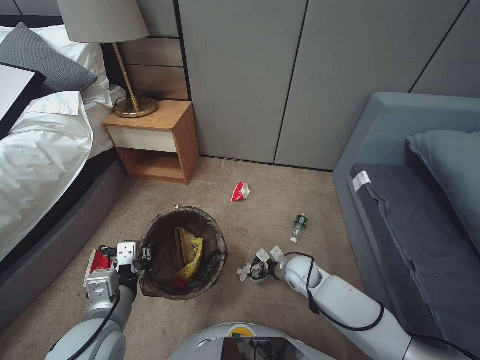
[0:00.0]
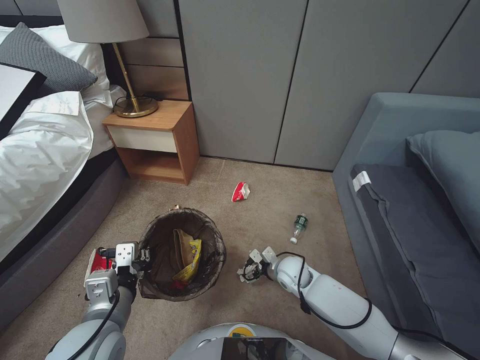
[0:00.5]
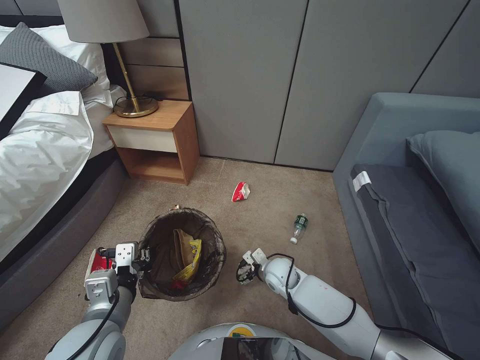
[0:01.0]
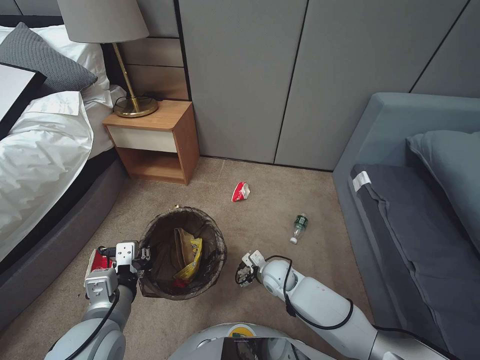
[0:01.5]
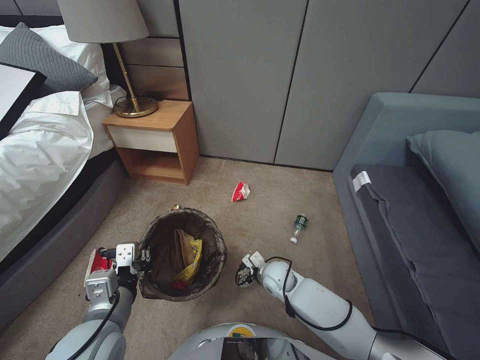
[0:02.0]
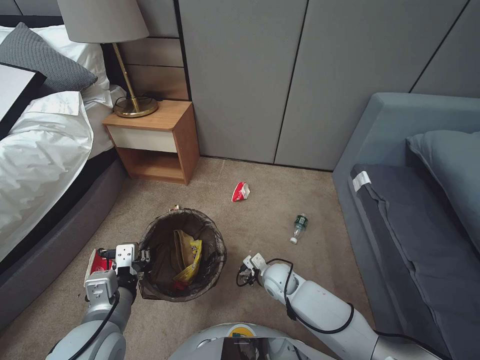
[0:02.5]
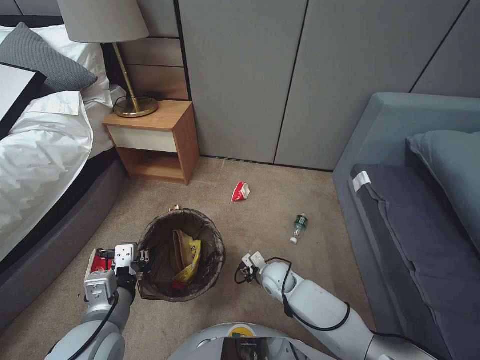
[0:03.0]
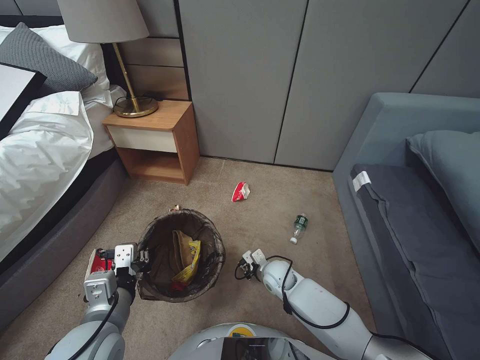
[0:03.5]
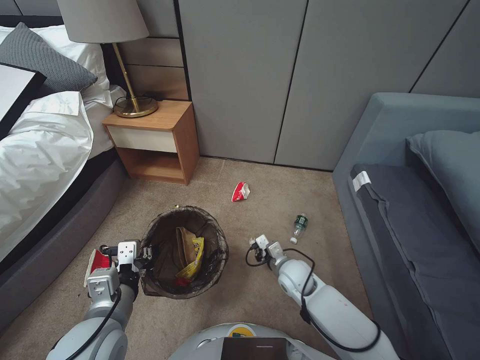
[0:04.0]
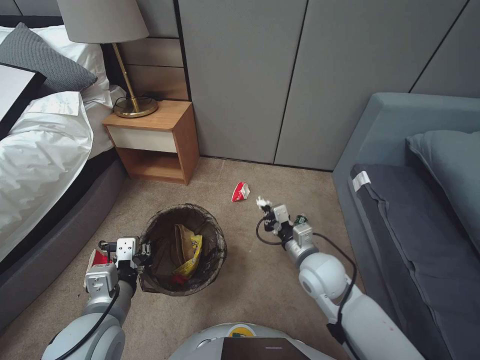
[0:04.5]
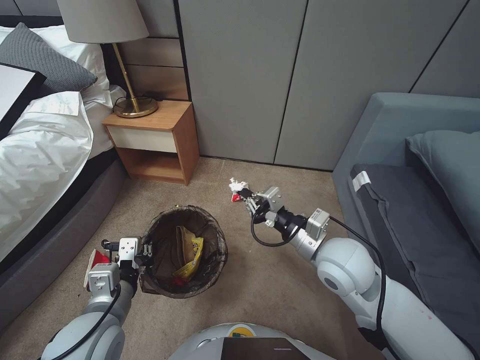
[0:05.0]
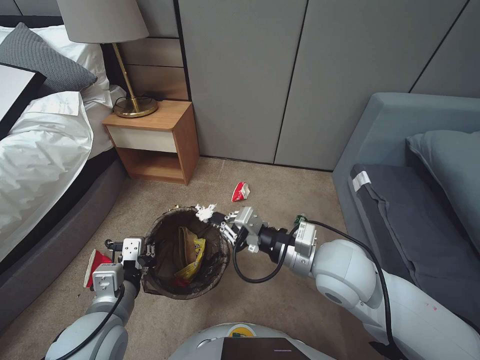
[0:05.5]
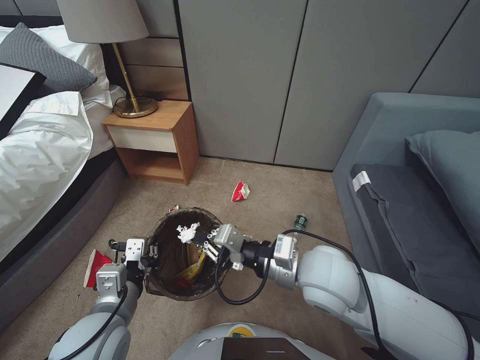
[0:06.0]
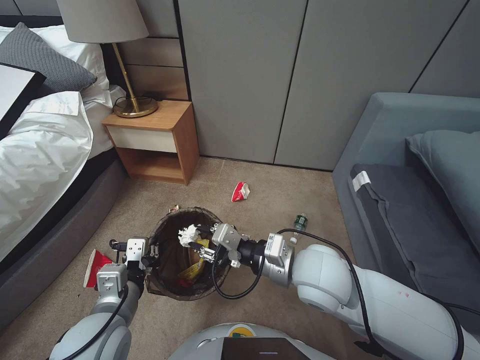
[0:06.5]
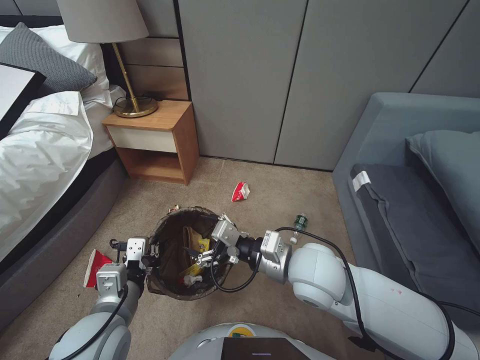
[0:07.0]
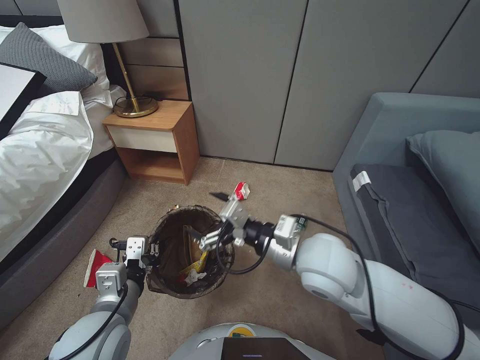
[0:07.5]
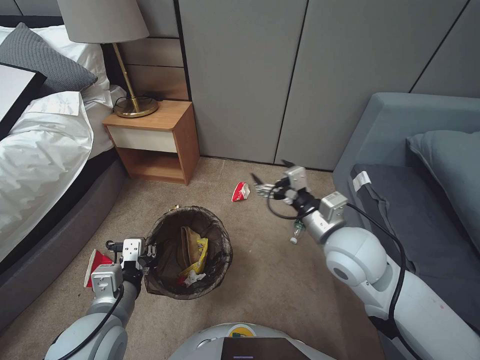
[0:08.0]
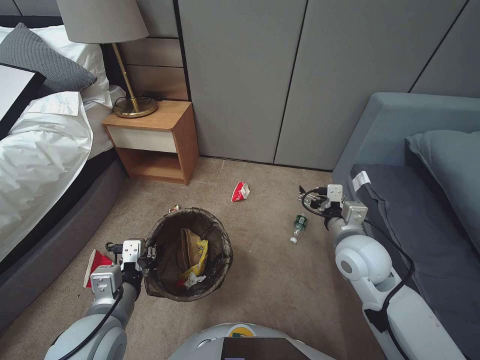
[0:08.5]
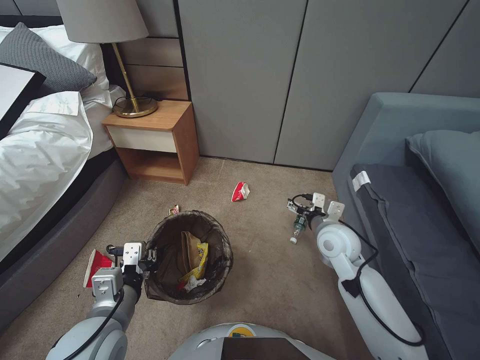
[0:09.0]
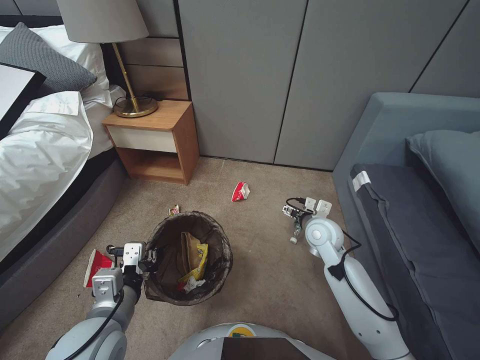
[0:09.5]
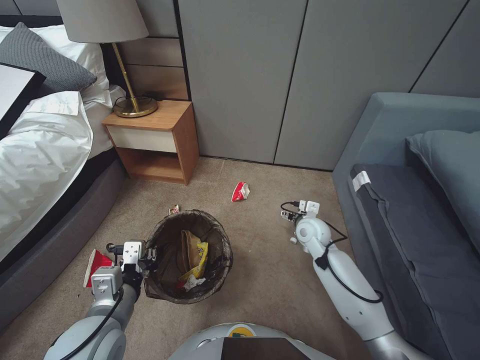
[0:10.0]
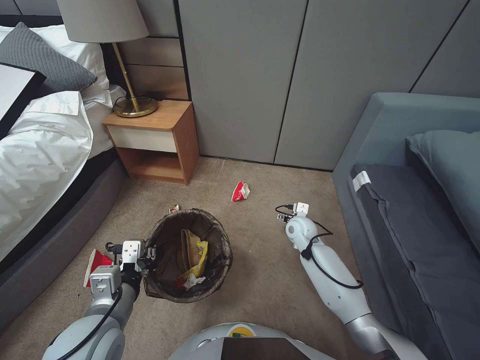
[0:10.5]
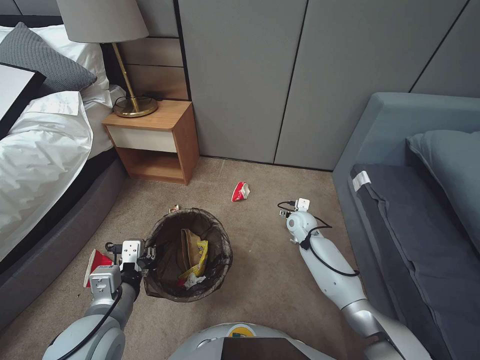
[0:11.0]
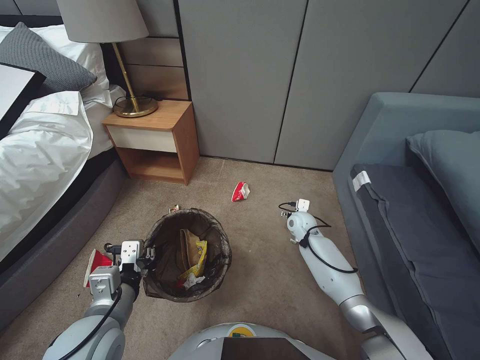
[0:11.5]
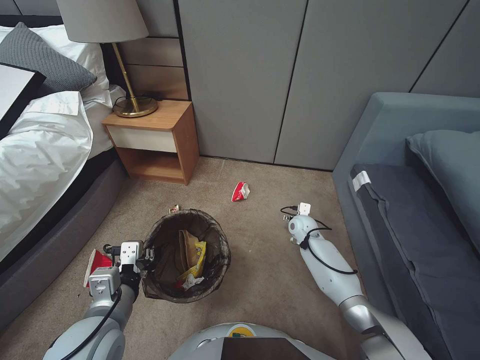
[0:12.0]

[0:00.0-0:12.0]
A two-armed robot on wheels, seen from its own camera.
Task of the whole recording: Pick up the trash bin, then pick up the garbage from the floor and place it into the trash bin.
0:00.0 to 0:02.0: The right gripper goes about 5 cm to the left.
0:02.0 to 0:04.0: The right gripper shifts by approximately 5 cm, and closes its fingers.
0:04.0 to 0:06.0: The right gripper goes roughly 25 cm upward.
0:06.0 to 0:08.0: The right gripper ends up roughly 5 cm from where it was, and opens.
0:08.0 to 0:10.0: The right gripper moves downward and forward, approximately 25 cm.
0:10.0 to 0:12.0: The right gripper moves downward and forward, approximately 10 cm.

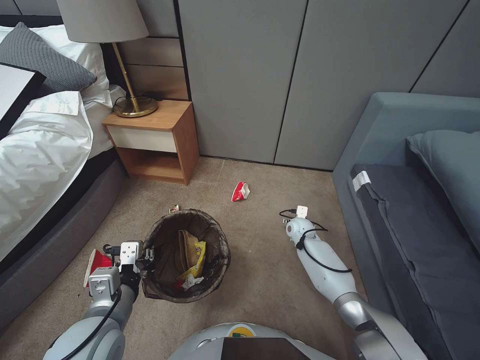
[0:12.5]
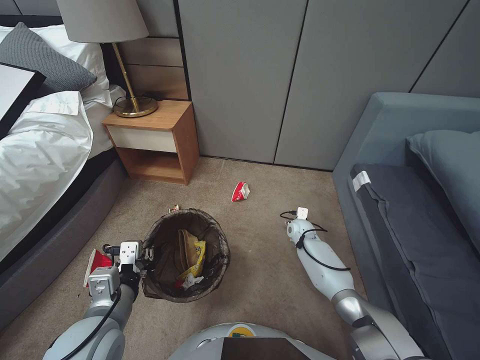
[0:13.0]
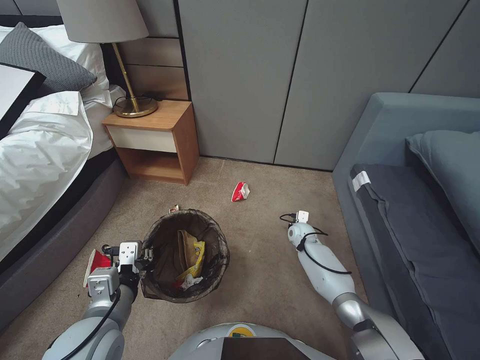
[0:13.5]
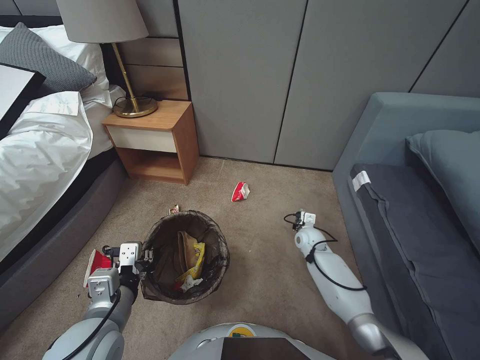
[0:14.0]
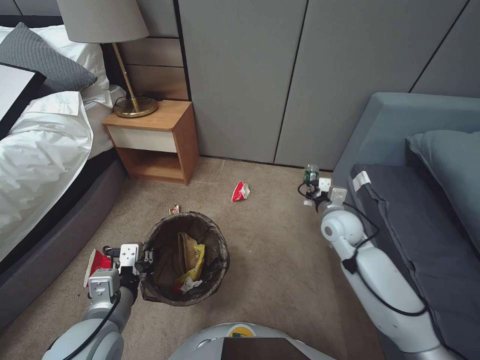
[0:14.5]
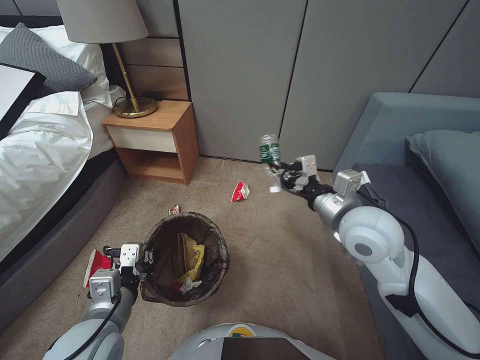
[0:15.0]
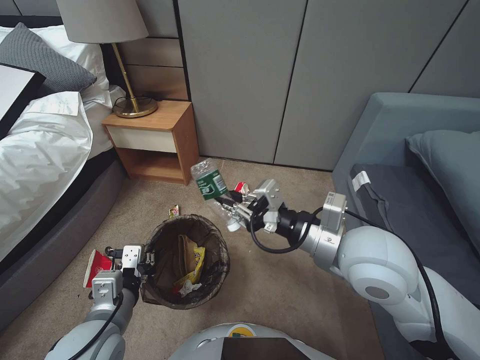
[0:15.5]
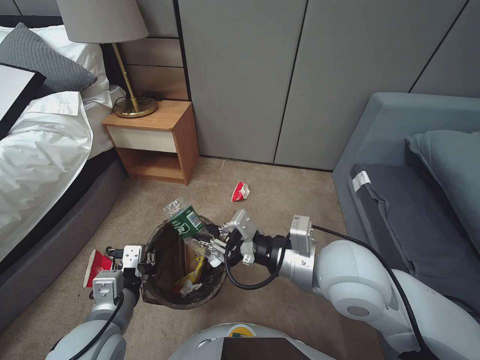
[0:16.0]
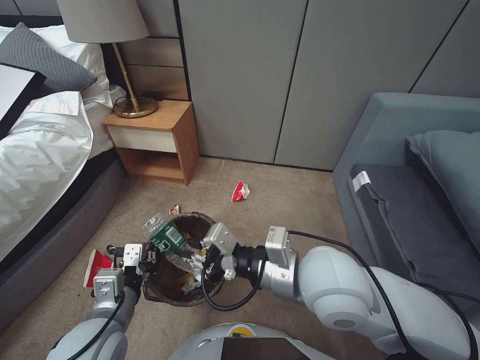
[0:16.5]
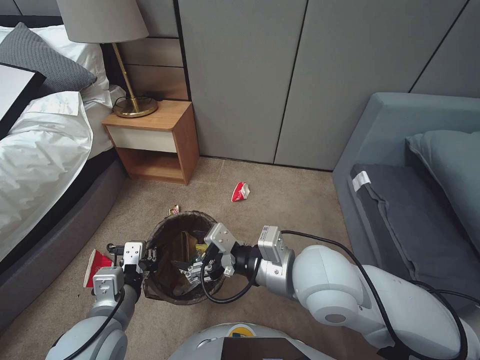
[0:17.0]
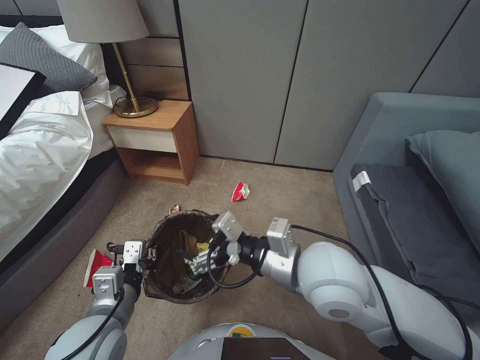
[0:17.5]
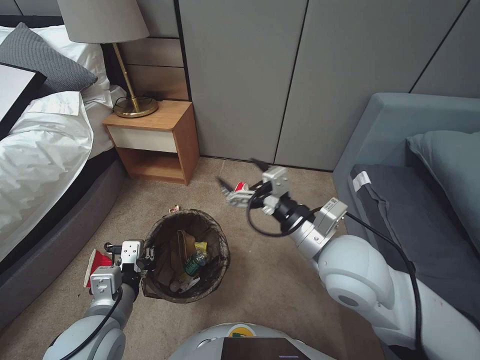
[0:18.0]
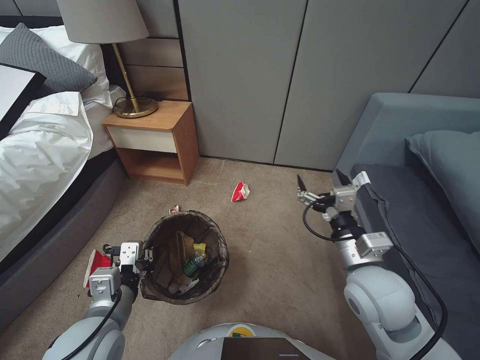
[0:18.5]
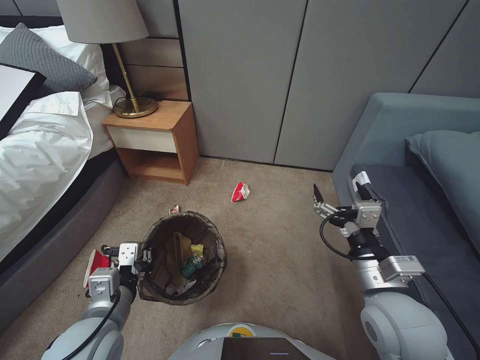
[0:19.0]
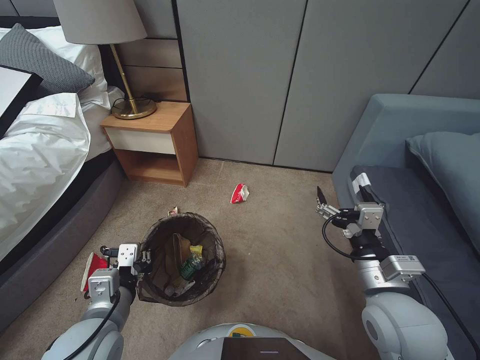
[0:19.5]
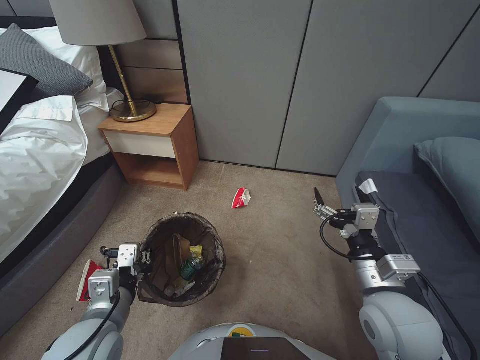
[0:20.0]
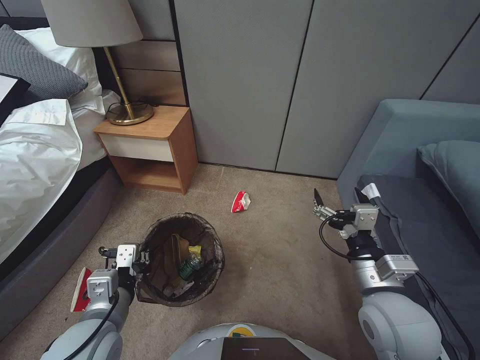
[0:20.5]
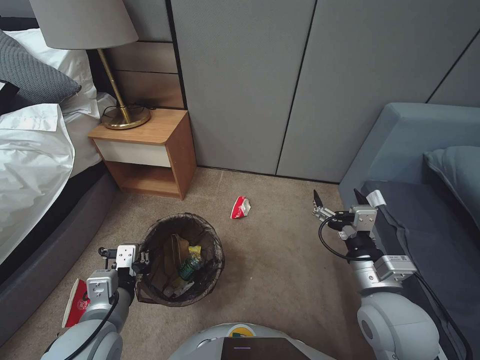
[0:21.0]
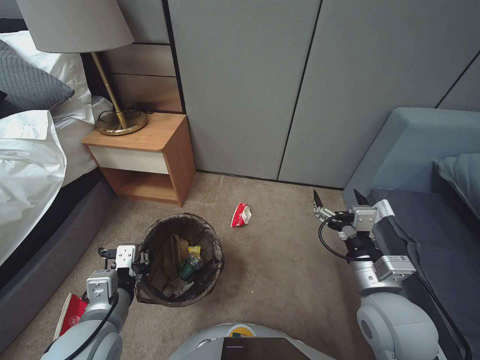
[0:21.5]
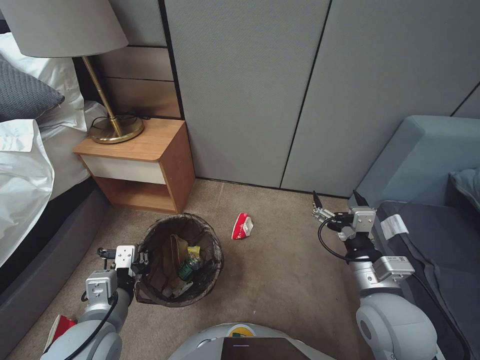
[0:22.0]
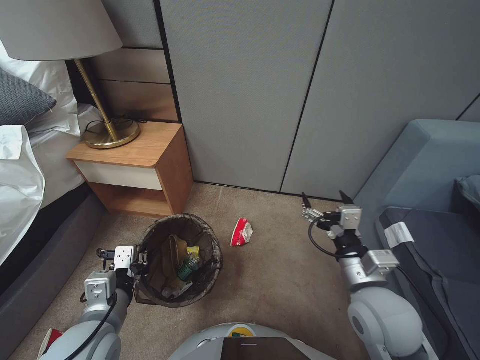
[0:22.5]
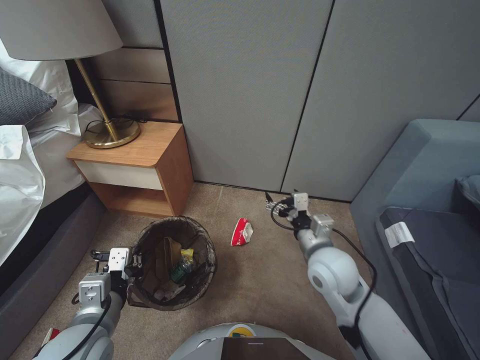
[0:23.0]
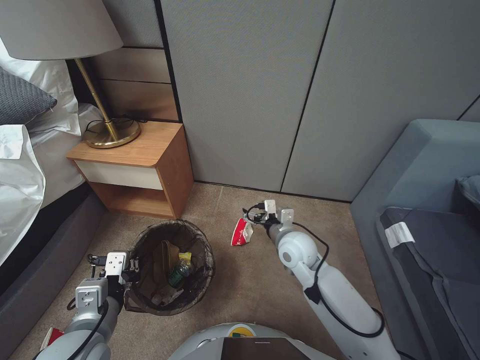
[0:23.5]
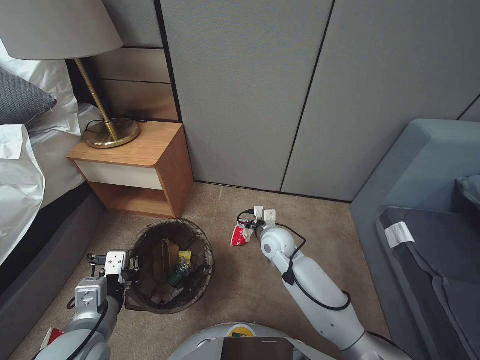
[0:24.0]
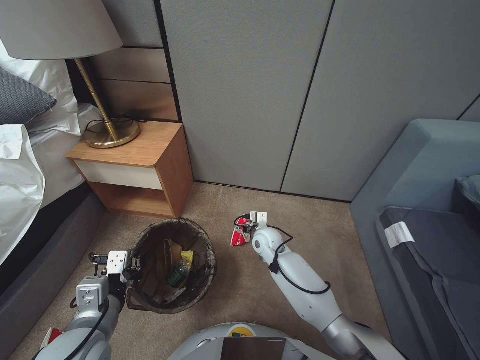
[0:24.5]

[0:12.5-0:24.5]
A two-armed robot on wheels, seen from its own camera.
Task of the whole recording: Pick up the trash bin, then pick up the garbage from the floor and place it into the trash bin.
0:12.5 to 0:14.5: The right gripper travels upward and backward by roughly 15 cm, and closes up.
0:14.5 to 0:16.5: The right gripper shifts roughly 30 cm backward, upward and to the left.
0:16.5 to 0:18.5: The right gripper travels to the right and downward by roughly 15 cm, and opens.
0:18.5 to 0:20.5: The grippers make only small movements.
0:22.5 to 0:24.5: The right gripper heads forward, downward and to the left, covering roughly 35 cm.

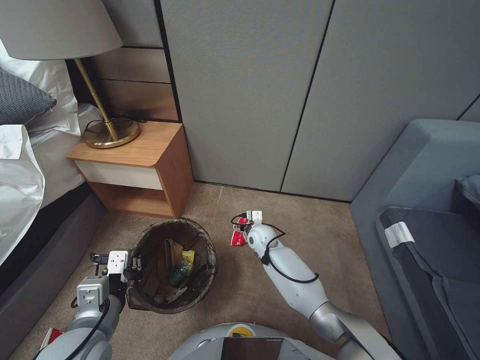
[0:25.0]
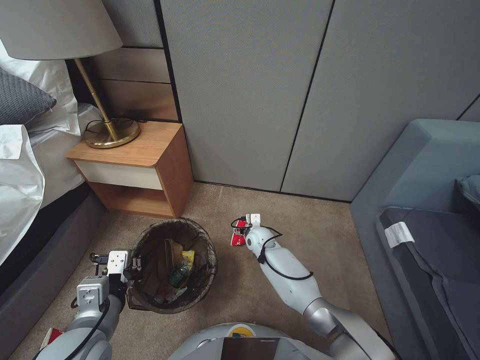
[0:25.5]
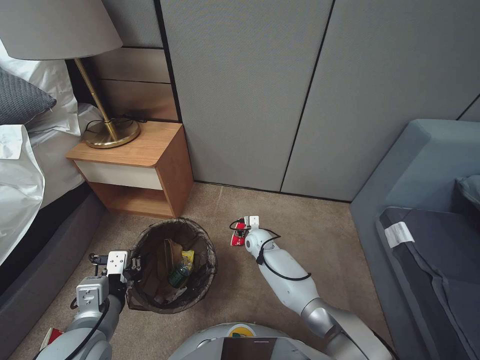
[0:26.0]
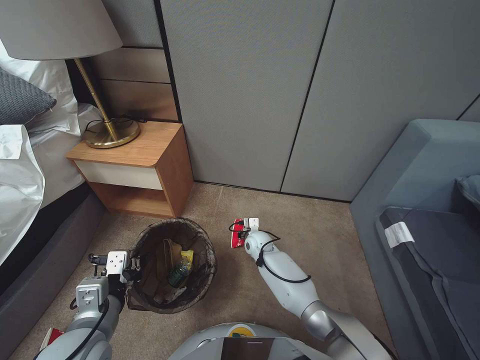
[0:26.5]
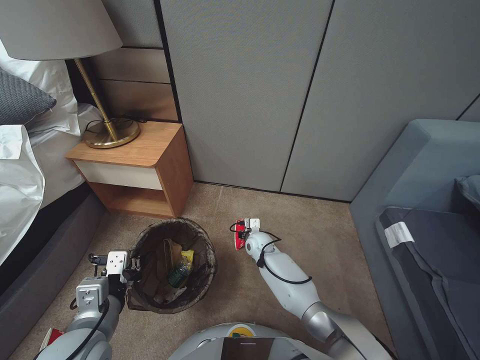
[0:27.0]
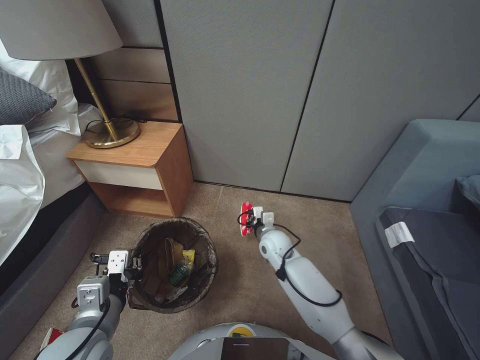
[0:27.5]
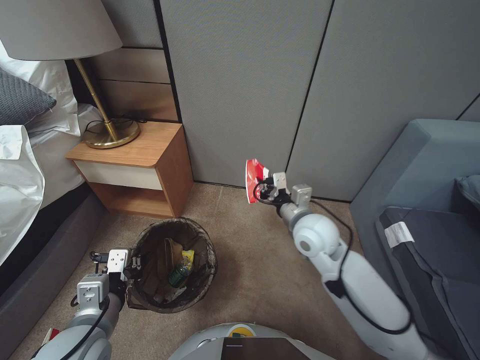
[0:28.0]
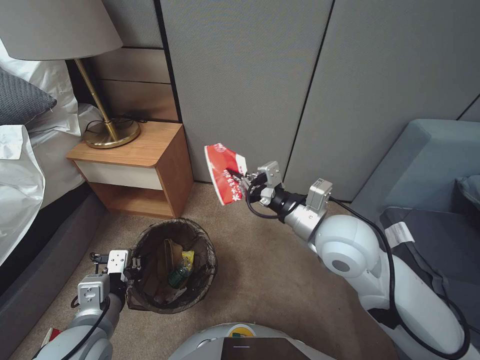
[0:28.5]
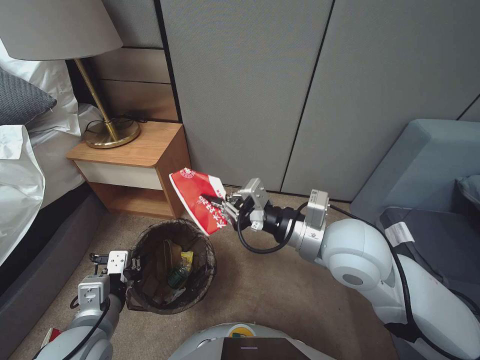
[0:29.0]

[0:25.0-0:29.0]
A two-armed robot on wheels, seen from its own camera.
Task of the whole recording: Pick up the trash bin, then pick up the garbage from the floor and place it into the trash bin.
0:25.0 to 0:27.0: The right gripper closes.
0:27.0 to 0:29.0: The right gripper heads upward and backward, covering roughly 40 cm.
